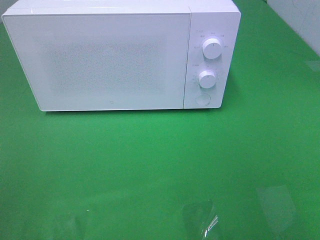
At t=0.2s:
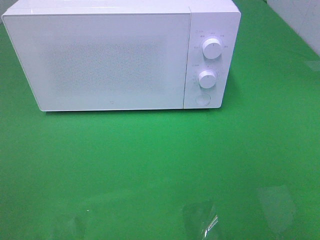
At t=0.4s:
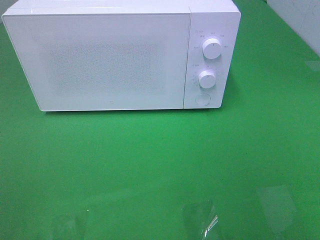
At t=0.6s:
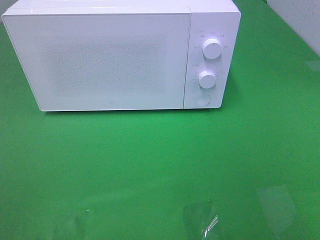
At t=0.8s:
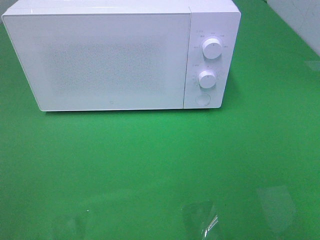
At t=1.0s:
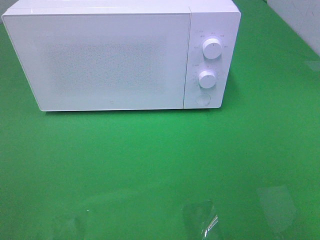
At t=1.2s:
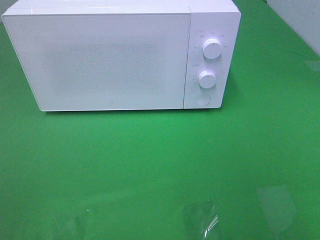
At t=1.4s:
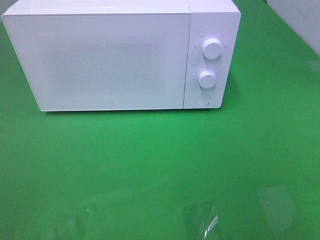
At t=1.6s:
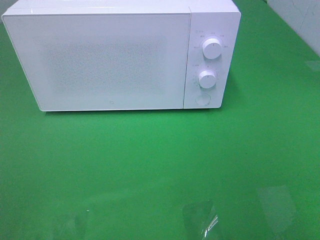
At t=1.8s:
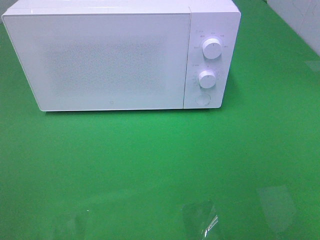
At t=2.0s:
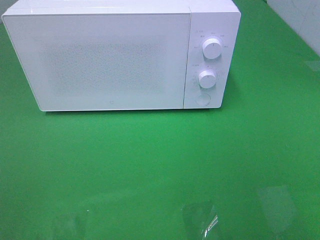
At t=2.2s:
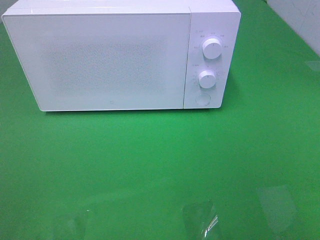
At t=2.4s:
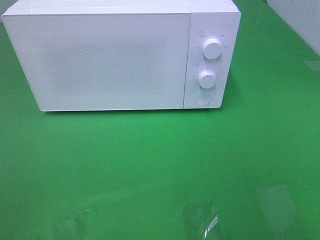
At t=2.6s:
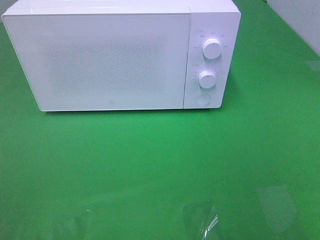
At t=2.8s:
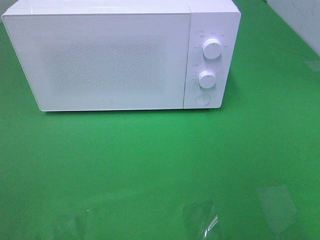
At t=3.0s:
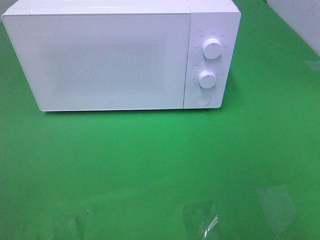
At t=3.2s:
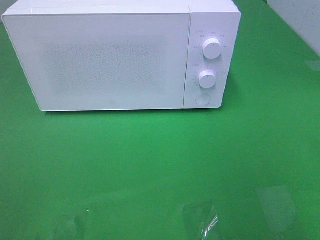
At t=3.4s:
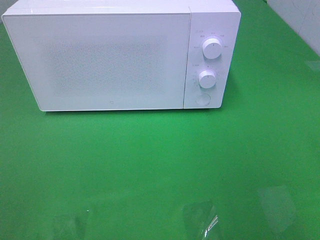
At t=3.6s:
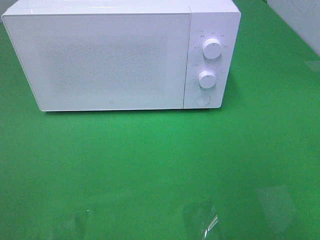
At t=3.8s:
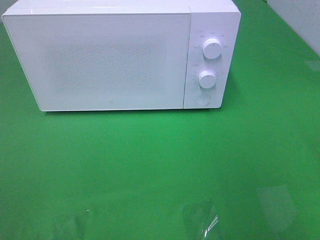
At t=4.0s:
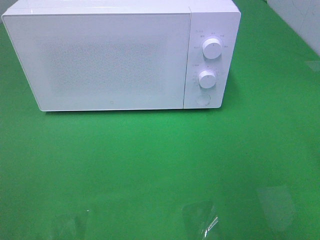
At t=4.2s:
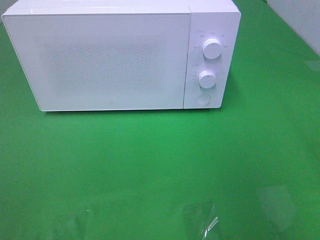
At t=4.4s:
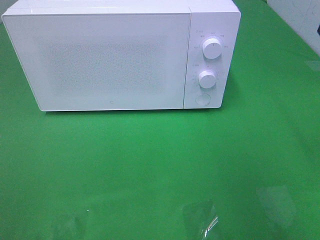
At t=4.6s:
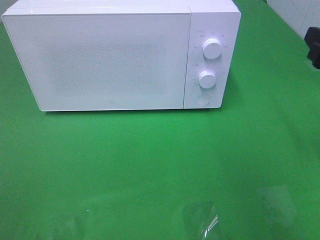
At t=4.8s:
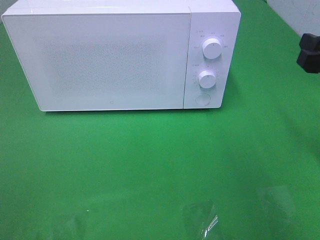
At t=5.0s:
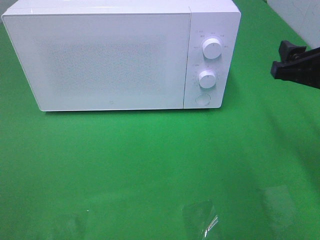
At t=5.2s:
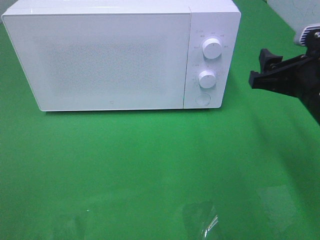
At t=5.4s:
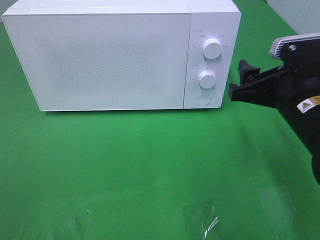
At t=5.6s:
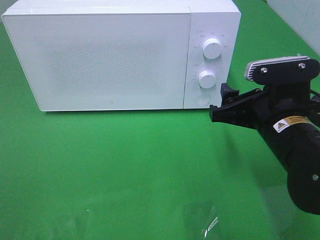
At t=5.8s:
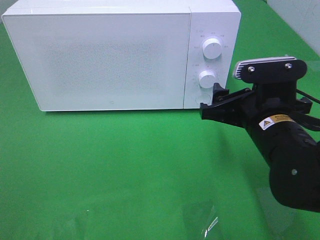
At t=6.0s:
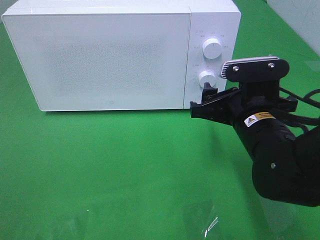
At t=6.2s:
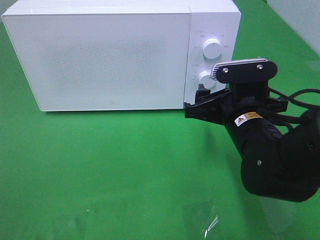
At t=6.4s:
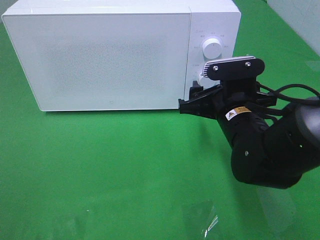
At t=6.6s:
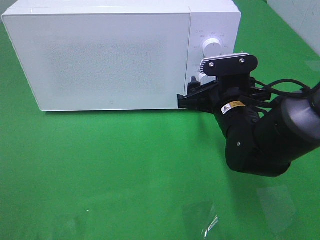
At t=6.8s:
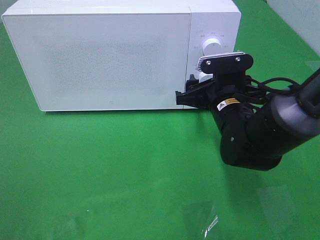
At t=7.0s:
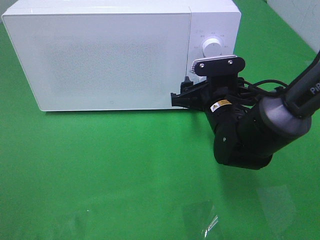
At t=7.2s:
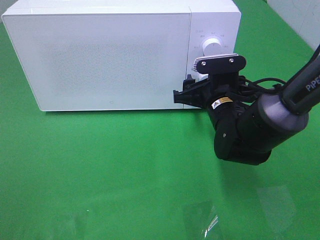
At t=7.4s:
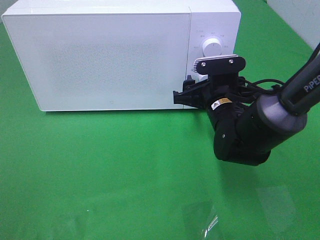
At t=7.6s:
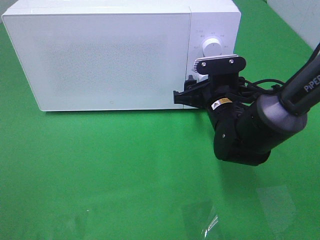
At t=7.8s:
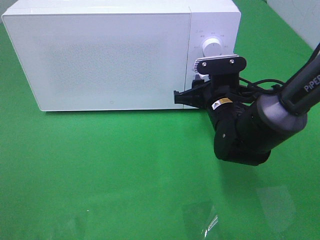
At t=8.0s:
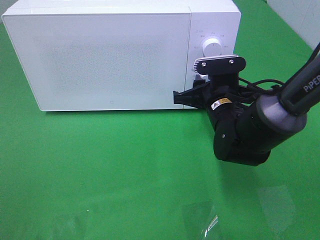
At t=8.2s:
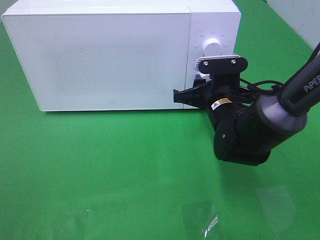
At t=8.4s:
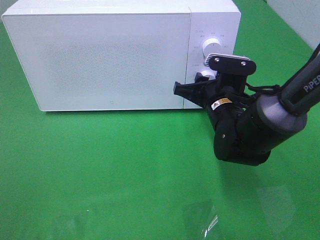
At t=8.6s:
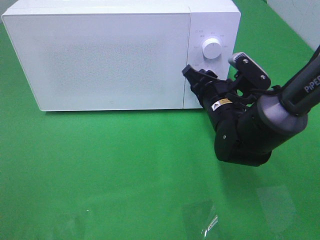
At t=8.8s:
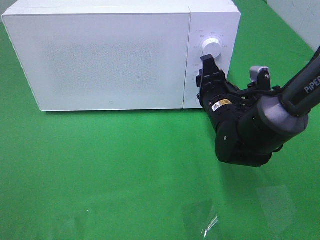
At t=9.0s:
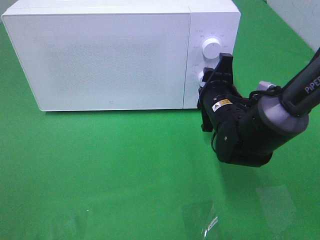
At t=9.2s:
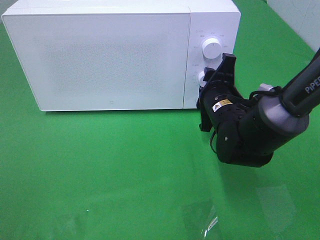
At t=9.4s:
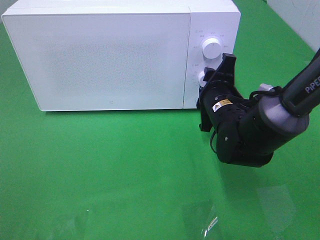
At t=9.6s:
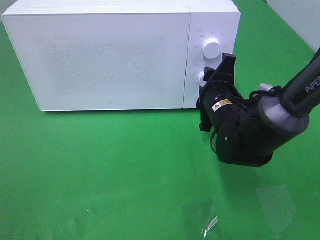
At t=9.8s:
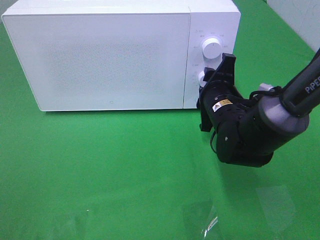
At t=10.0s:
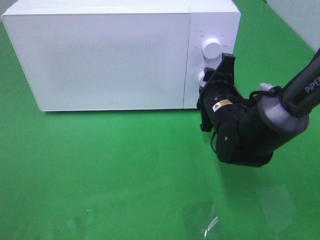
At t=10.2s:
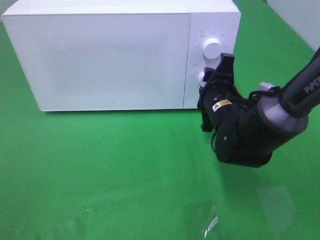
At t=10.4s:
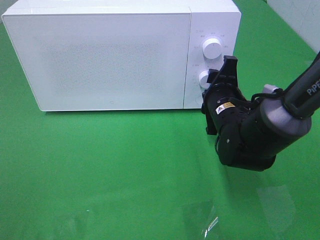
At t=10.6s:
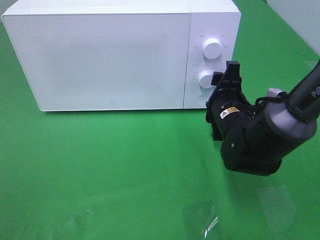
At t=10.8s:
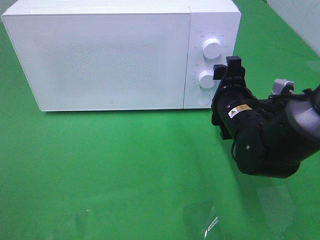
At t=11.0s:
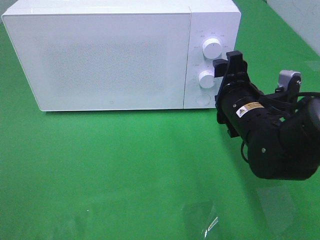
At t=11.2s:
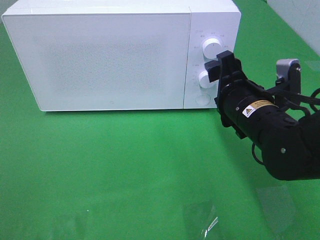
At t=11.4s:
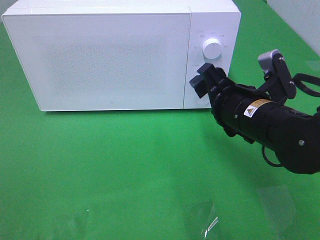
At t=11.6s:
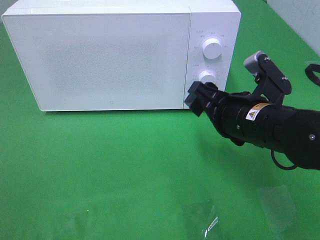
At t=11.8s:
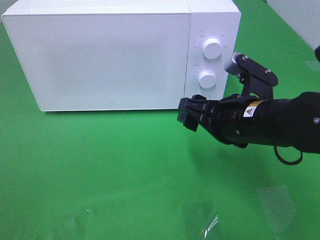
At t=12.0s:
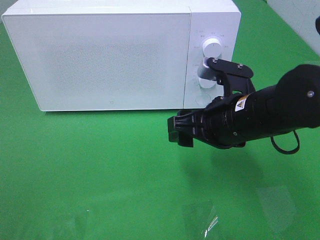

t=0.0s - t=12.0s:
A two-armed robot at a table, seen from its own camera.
Task of the whole recording: Heat the burger.
Step, t=0.0s - t=7.8s: Right hand: twist timer button.
t=4.4s - t=6.0s: The right gripper moves to the left and downward, approximately 20 cm.
t=6.0s - t=7.6s: The right gripper goes roughly 10 cm forward.
t=9.0s - t=10.4s: The two grippers keep their place.
t=10.4s - t=12.0s: The right gripper is displaced backward and upward by approximately 10 cm.

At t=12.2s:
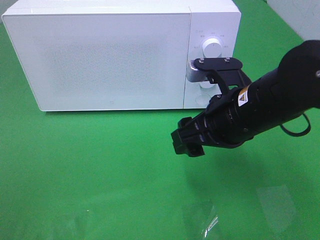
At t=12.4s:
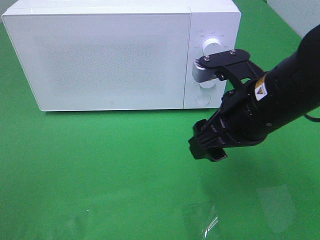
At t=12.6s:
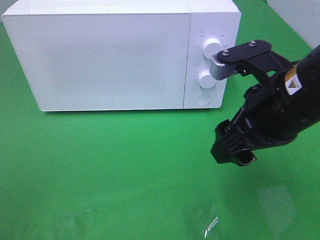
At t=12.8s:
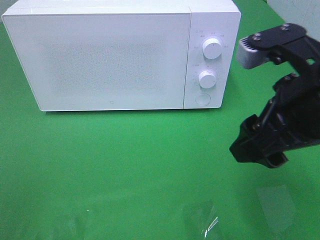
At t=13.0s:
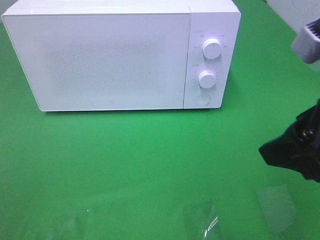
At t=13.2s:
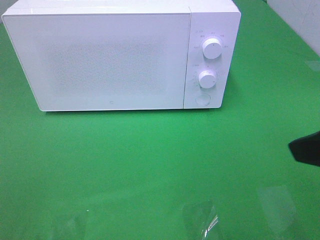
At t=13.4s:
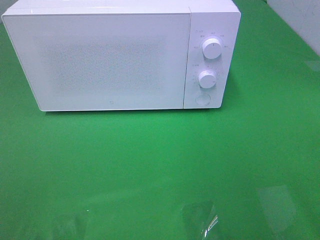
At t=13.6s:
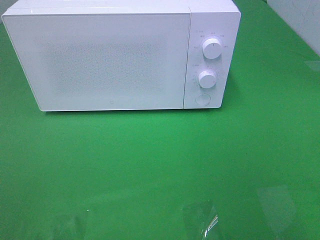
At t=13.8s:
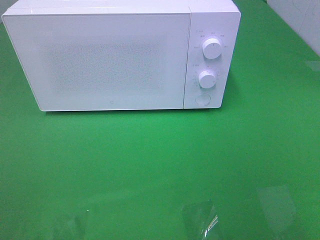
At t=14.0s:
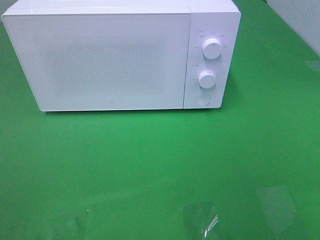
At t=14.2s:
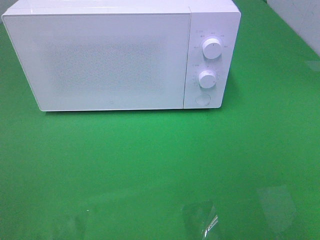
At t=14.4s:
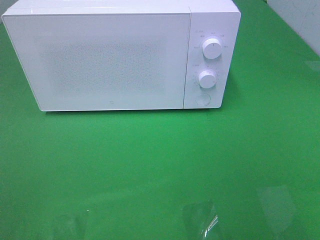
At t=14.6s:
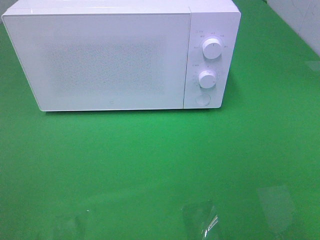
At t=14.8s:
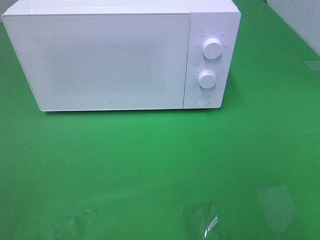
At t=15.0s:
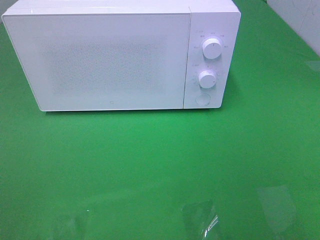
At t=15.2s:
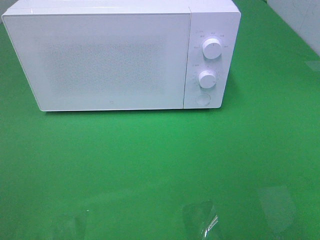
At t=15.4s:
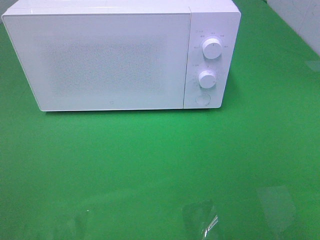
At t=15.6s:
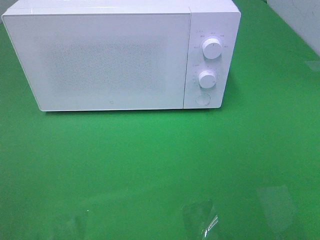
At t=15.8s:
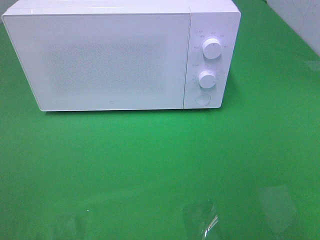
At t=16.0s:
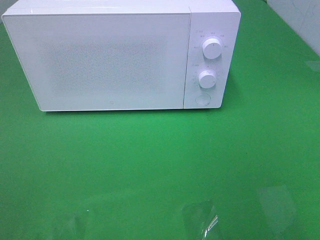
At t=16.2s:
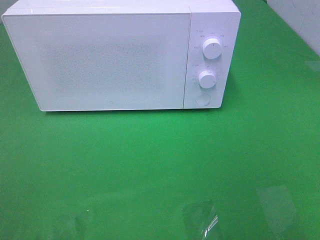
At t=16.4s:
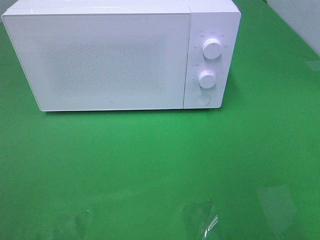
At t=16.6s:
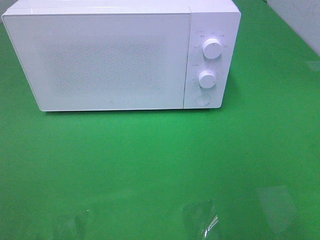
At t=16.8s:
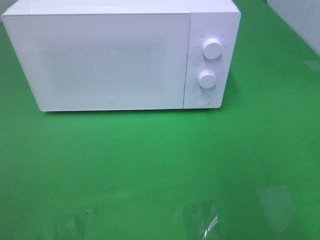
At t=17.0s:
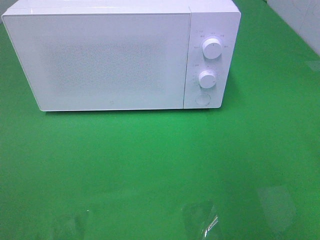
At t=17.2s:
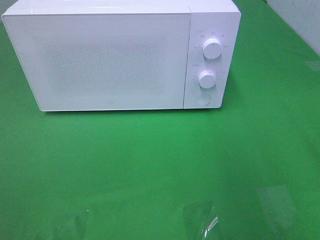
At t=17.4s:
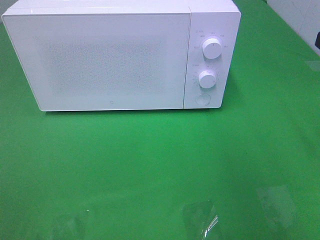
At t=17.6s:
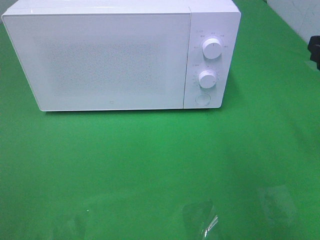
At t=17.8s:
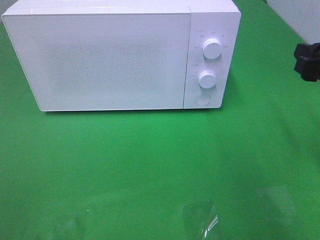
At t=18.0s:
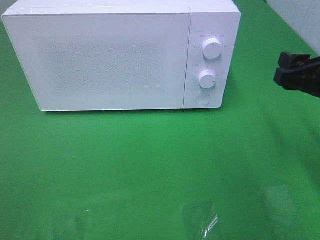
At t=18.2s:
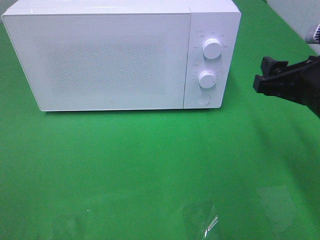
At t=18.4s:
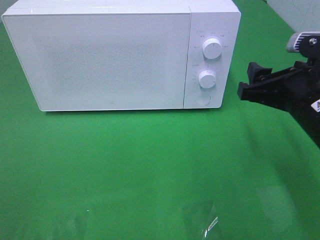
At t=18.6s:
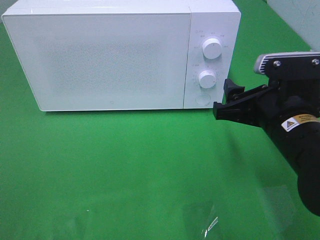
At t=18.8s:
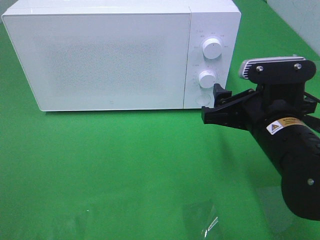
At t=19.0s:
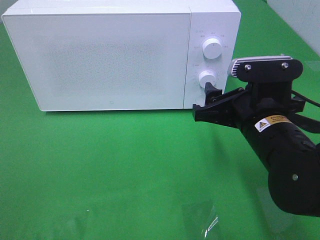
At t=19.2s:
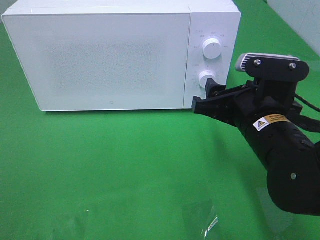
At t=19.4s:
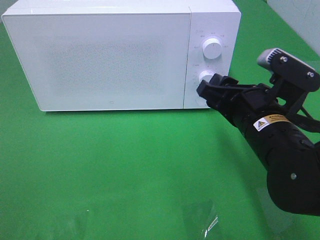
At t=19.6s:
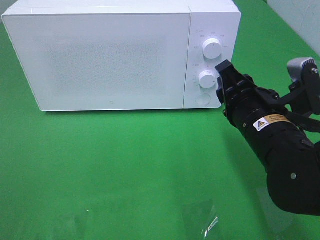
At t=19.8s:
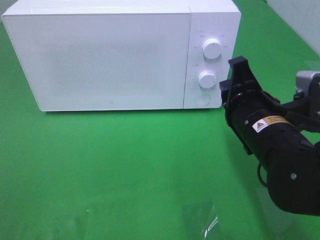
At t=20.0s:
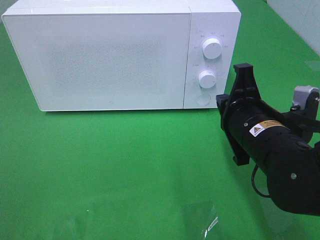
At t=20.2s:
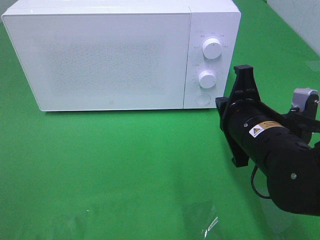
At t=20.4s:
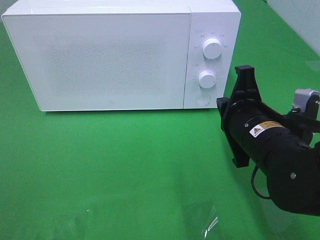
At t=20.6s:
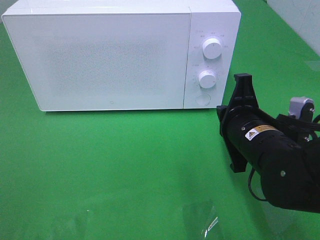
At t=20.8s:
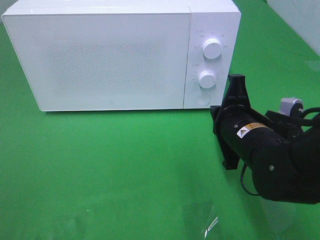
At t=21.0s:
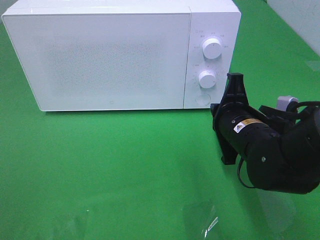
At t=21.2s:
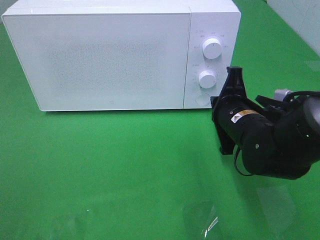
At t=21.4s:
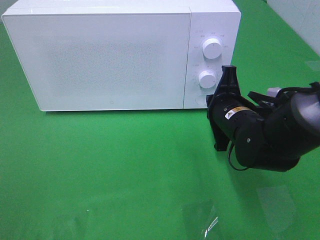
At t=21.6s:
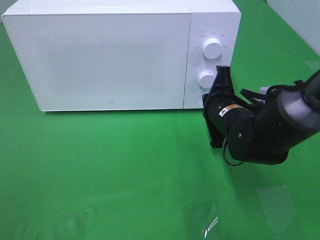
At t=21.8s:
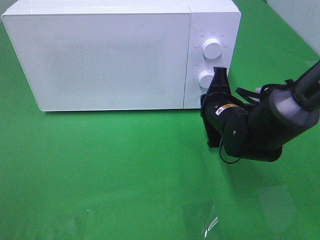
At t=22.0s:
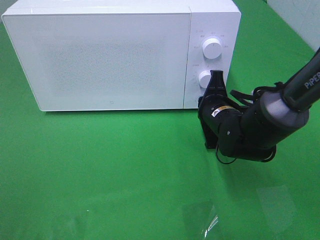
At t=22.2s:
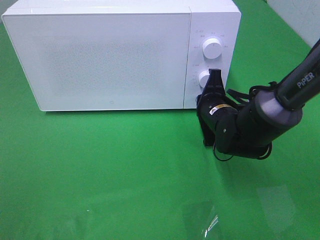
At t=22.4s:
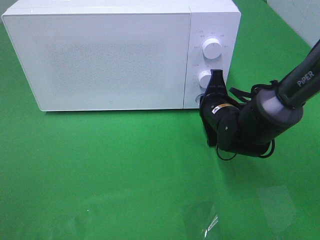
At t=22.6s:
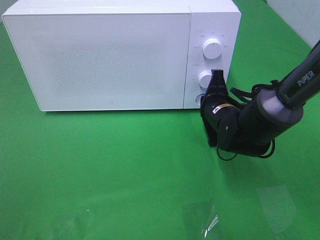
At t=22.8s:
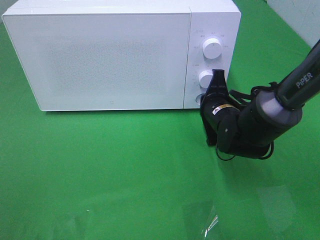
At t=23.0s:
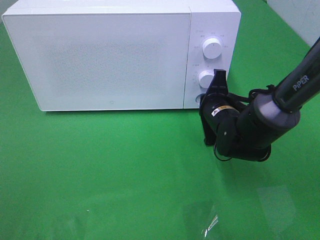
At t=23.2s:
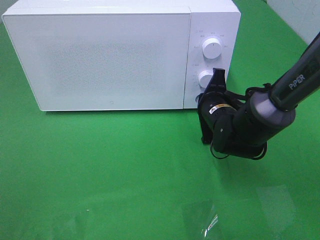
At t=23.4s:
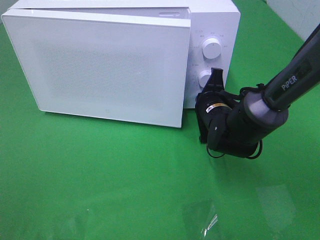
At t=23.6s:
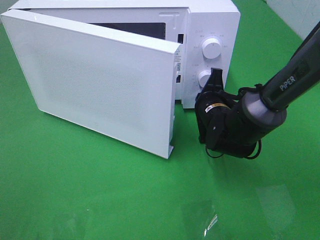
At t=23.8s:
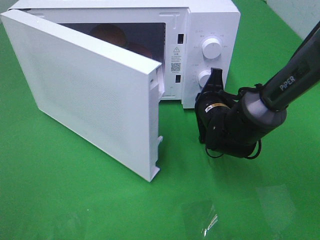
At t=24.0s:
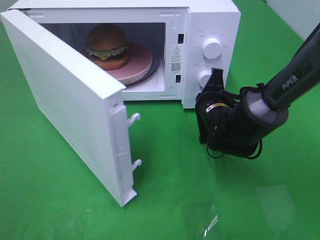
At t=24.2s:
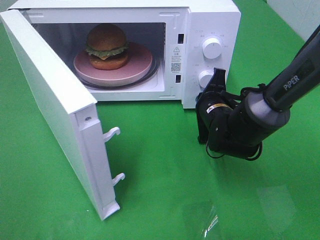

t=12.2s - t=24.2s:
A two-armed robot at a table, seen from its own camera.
Task of the whole recording: Heat the burger.
Step, t=12.2s - t=22.2s: Right hand: press the switch.
t=12.2s - t=13.8s: The right gripper goes roughly 25 cm backward, to the right and upward.
t=16.6s - t=18.2s: The right gripper goes roughly 20 cm forward, downward and to the left.
t=18.2s - t=19.8s: The right gripper goes roughly 10 cm to the left, and closes up.
t=19.8s - t=21.2s: The right gripper goes approximately 5 cm forward.
t=21.2s - t=22.6s: The right gripper is displaced forward by roughly 5 cm.
